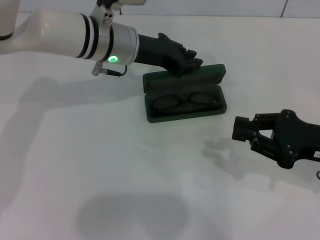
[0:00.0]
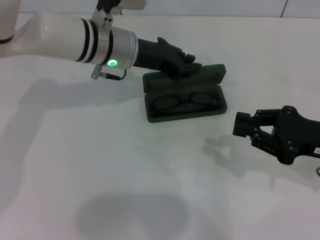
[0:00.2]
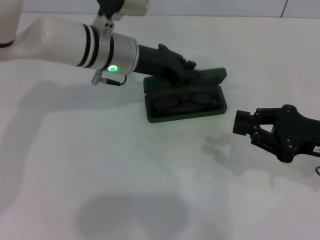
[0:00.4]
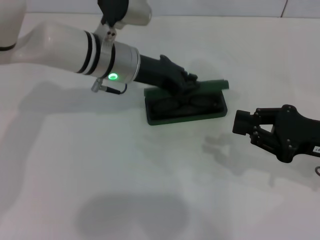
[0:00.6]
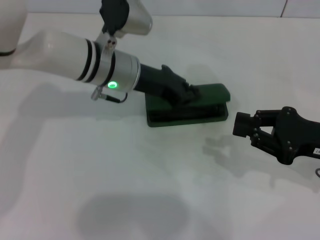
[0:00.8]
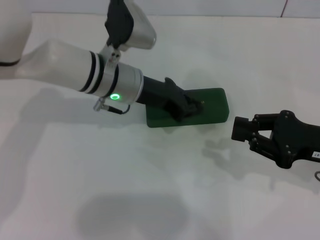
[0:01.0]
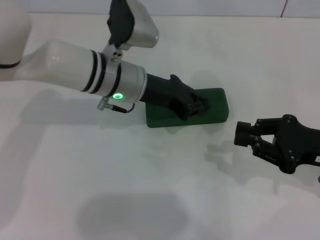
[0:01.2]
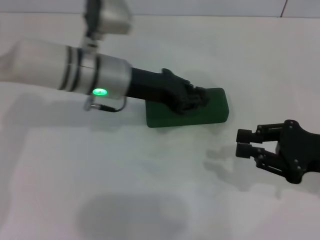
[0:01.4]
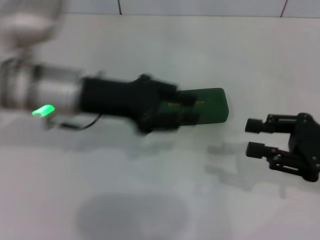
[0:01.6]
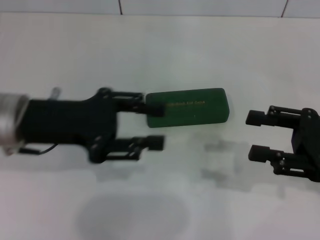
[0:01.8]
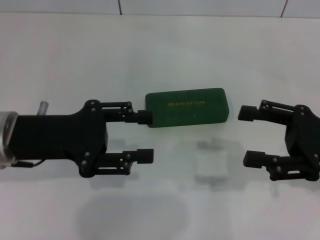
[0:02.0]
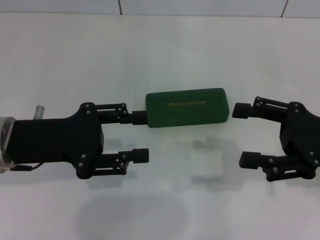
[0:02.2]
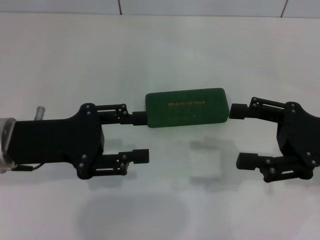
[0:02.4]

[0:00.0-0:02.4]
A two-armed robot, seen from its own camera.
0:00.0 to 0:01.2: The grippers move only a little.
0:01.2 to 0:02.4: The left gripper moves to the left and backward, roughly 20 cm, and opens its fingers. Meanwhile the right gripper opens up.
